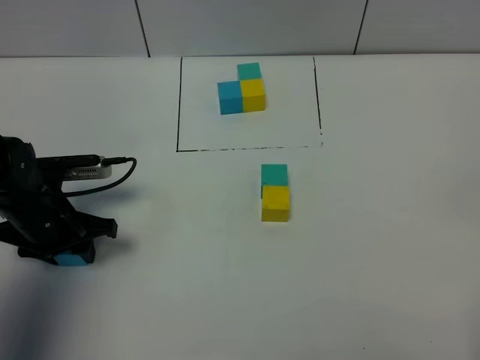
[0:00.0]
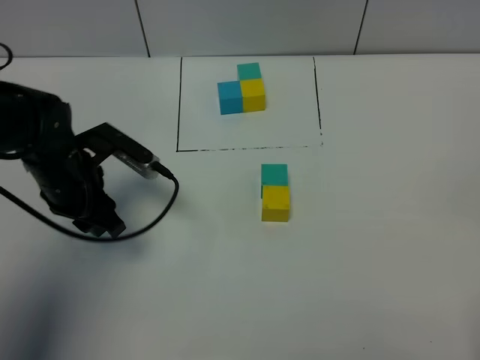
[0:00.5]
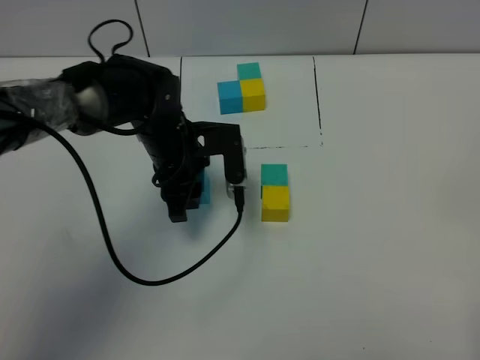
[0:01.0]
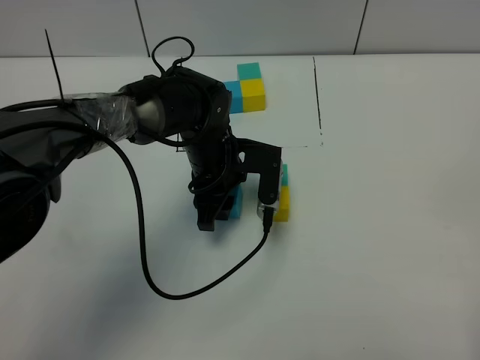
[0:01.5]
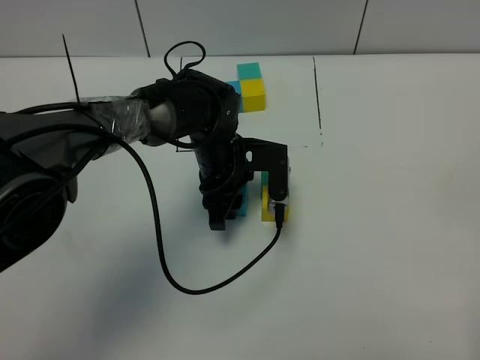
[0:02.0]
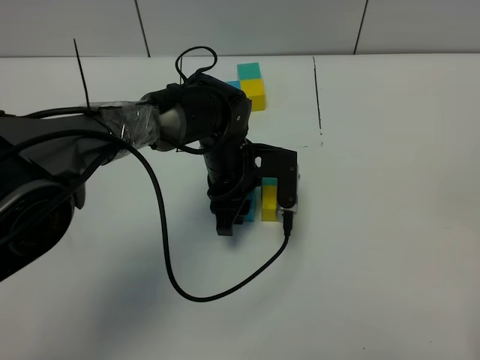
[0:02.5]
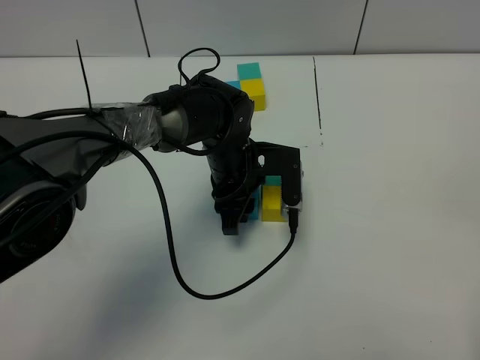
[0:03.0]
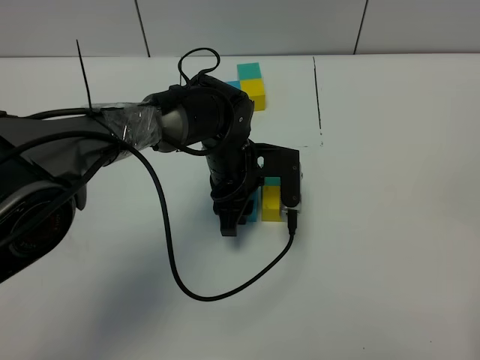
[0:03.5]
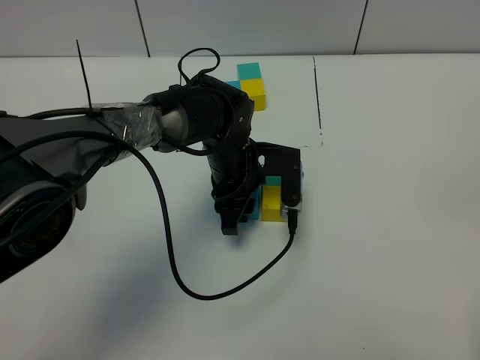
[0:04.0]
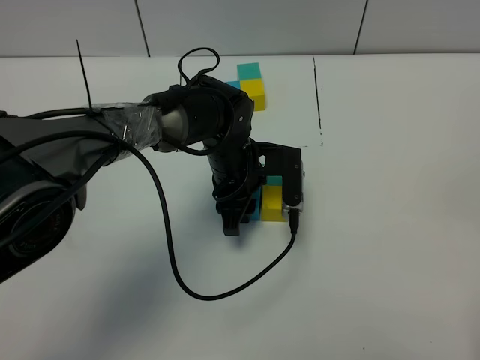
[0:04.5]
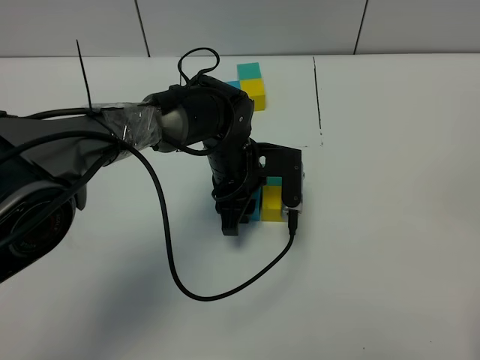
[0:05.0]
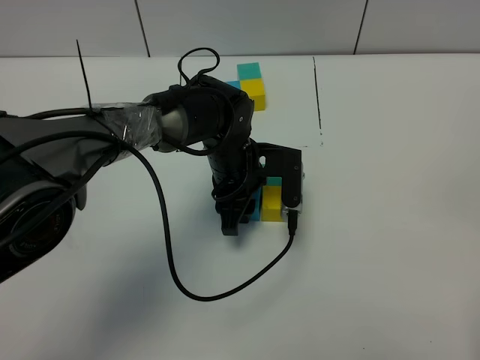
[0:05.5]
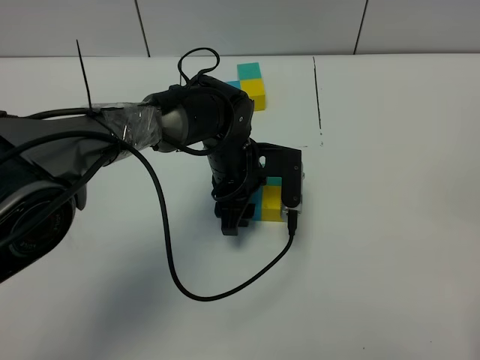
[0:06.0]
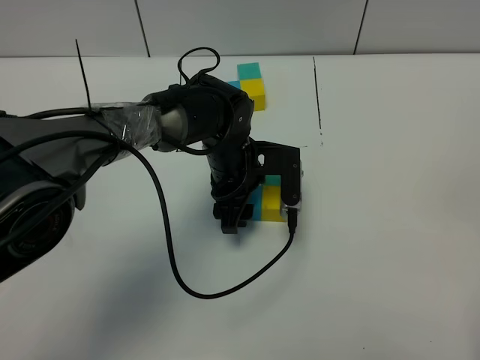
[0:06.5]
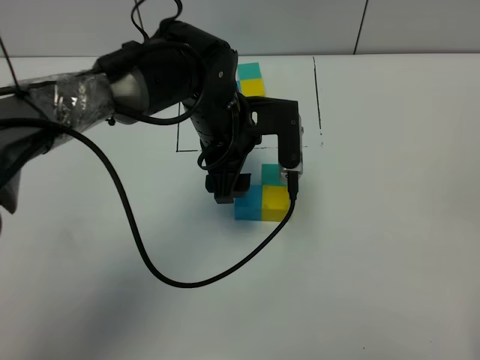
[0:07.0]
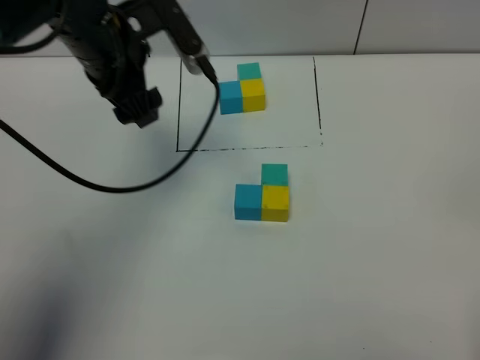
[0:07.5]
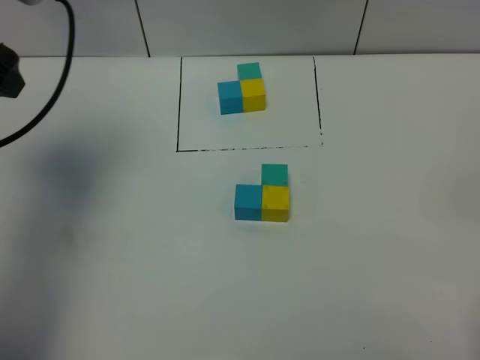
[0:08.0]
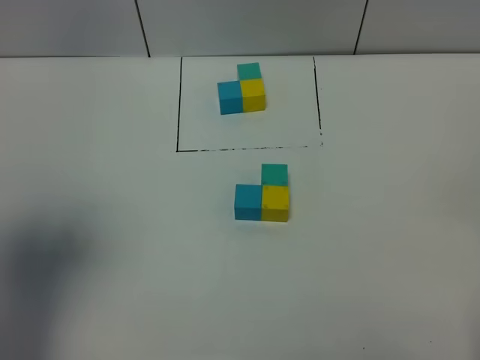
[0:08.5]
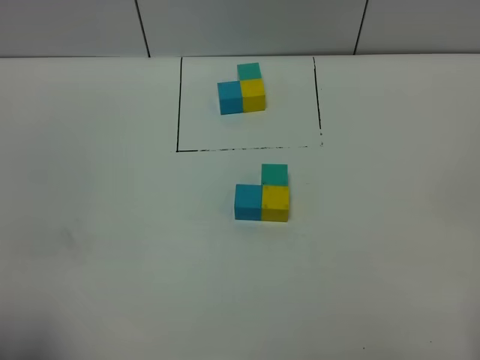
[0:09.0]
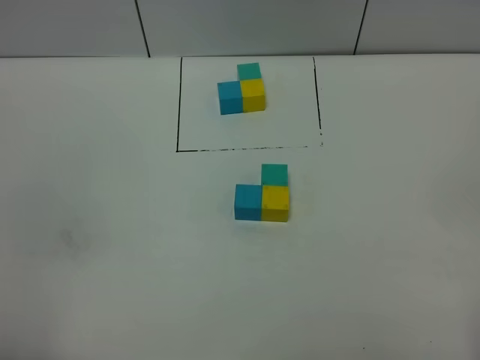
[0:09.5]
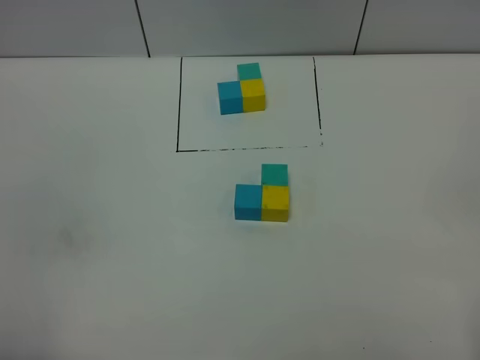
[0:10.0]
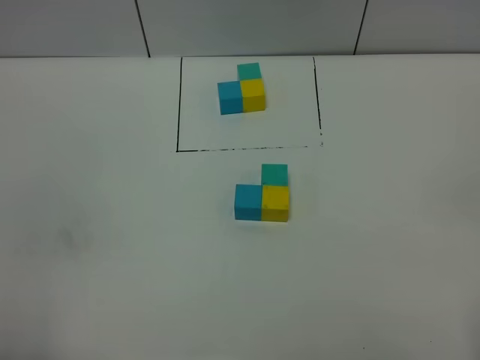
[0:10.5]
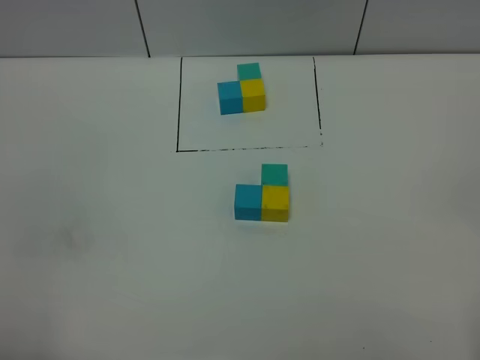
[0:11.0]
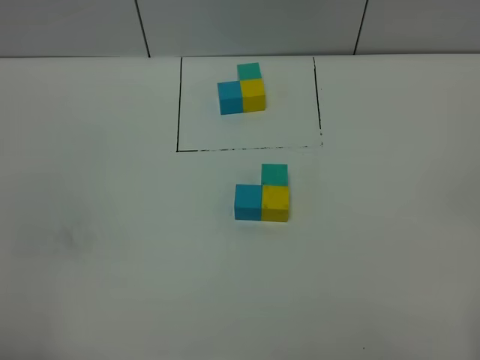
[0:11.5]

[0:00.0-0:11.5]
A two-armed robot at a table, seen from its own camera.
Task of the whole recording: According to the building block template in front, assemble the scattered blocks together.
Step, 0:00.0 to 0:06.0: Put the blue build block on the left of the yellow build block.
0:00.0 to 0:02.0: The left gripper goes some 20 cm to the right.
0:02.0 to 0:04.0: The grippers make only small movements.
0:04.0 to 0:06.0: Neither gripper changes place.
0:06.0 to 0:07.5: The left gripper shifts approximately 25 cm upward and to the left, and opens its fingers.
0:07.5 to 0:09.5: The left gripper heads backward, covering about 40 cm.
0:09.5 to 0:11.5: Both grippers stay put.

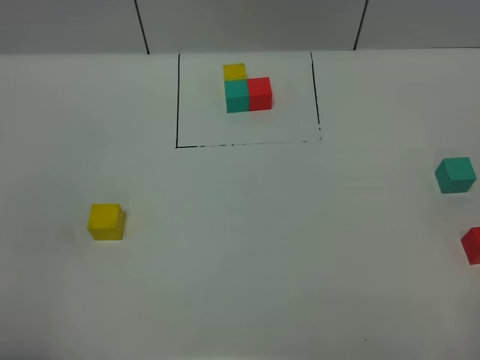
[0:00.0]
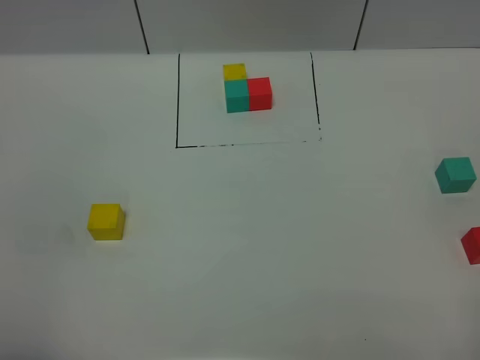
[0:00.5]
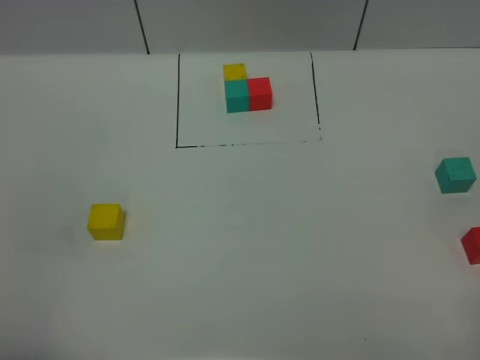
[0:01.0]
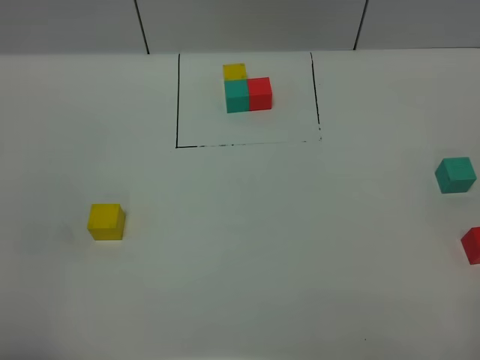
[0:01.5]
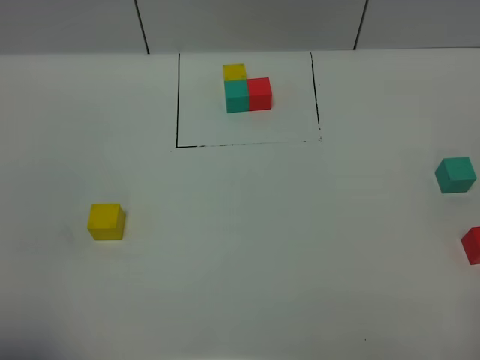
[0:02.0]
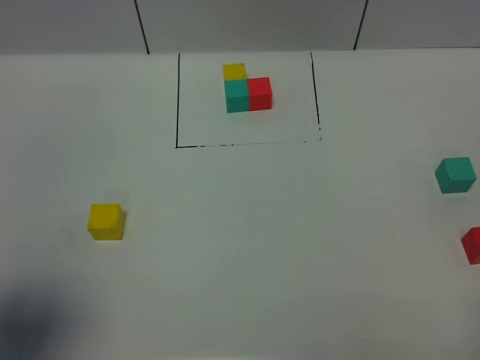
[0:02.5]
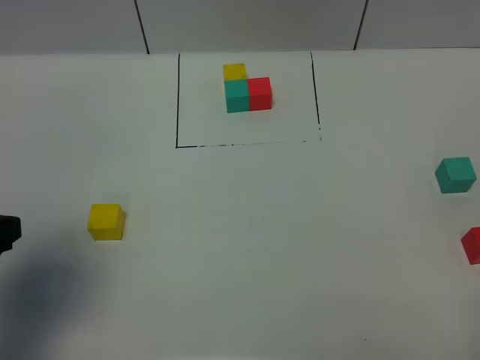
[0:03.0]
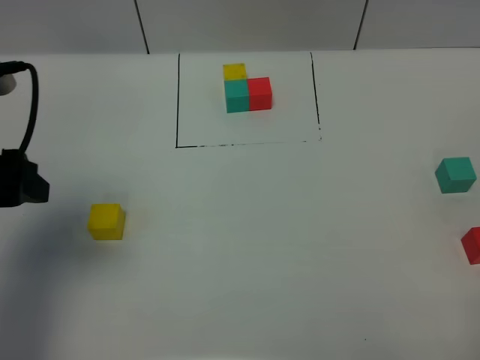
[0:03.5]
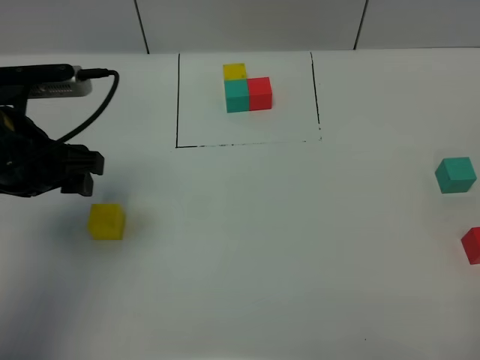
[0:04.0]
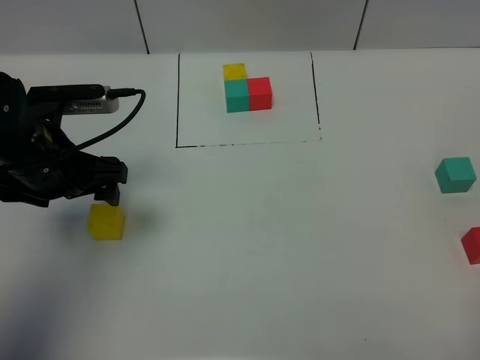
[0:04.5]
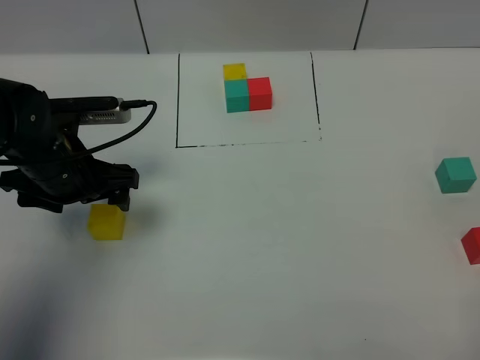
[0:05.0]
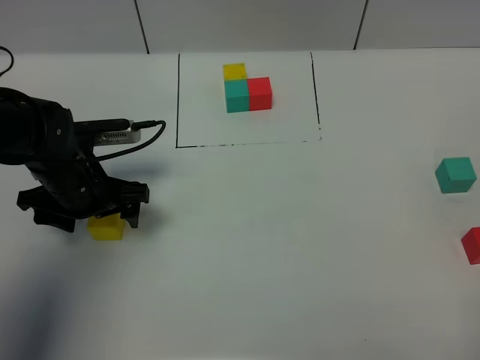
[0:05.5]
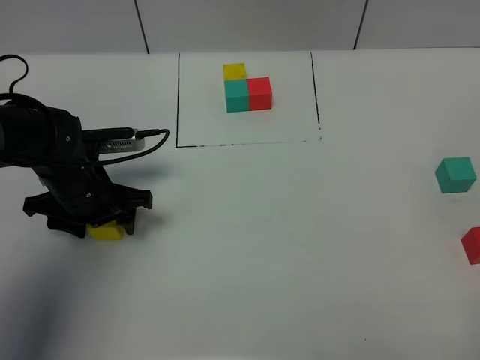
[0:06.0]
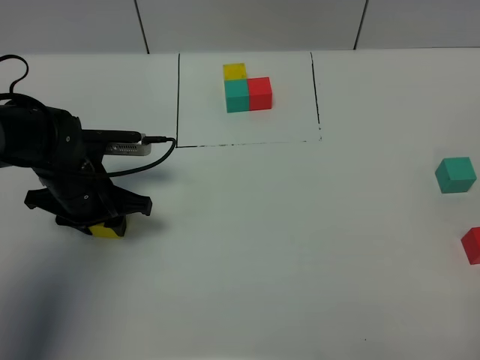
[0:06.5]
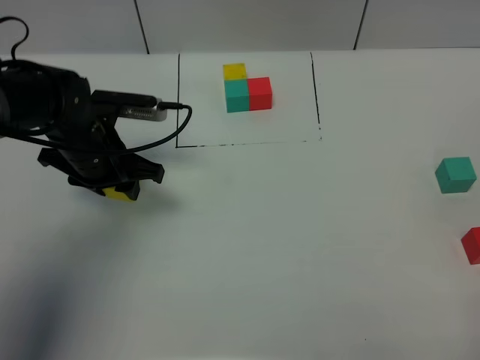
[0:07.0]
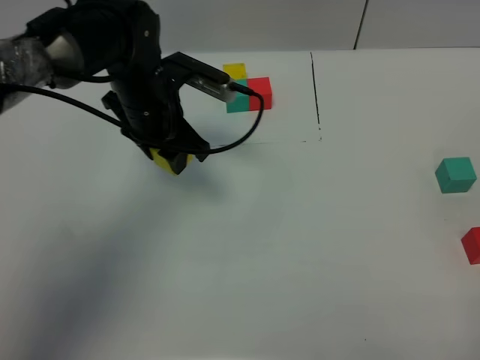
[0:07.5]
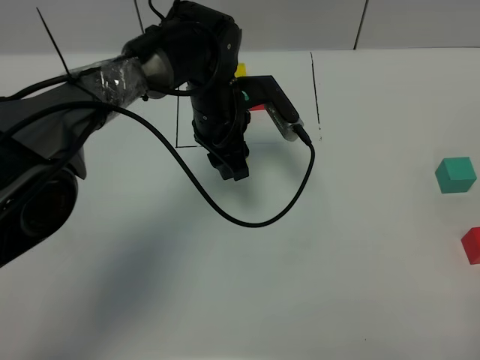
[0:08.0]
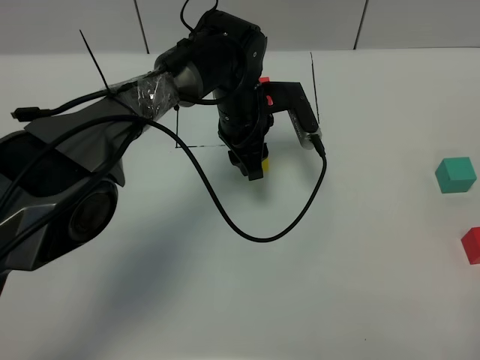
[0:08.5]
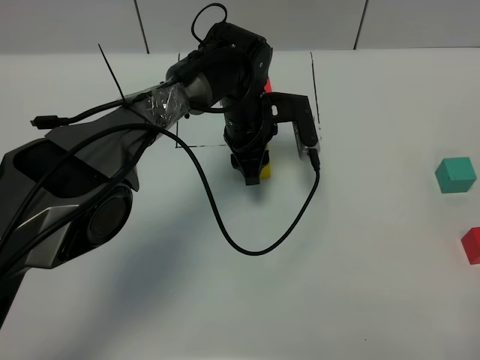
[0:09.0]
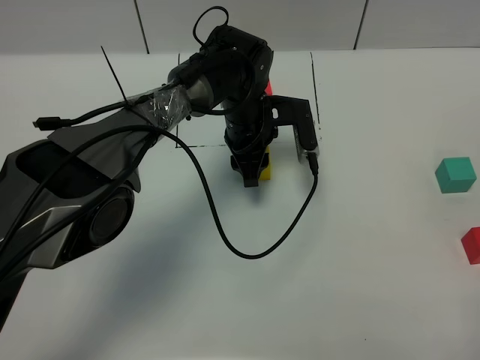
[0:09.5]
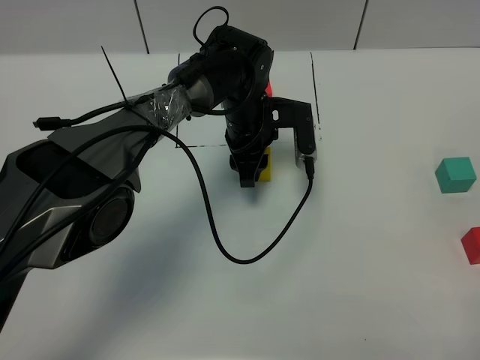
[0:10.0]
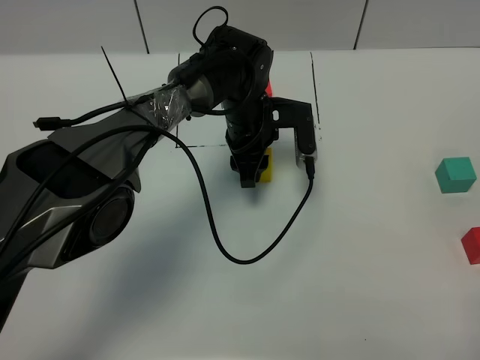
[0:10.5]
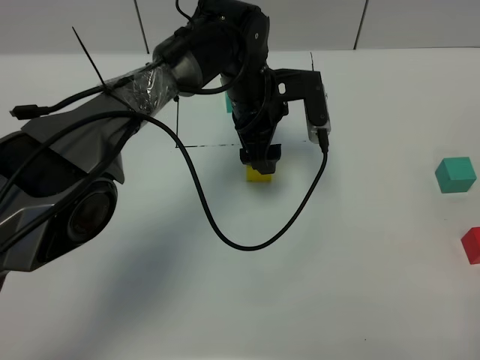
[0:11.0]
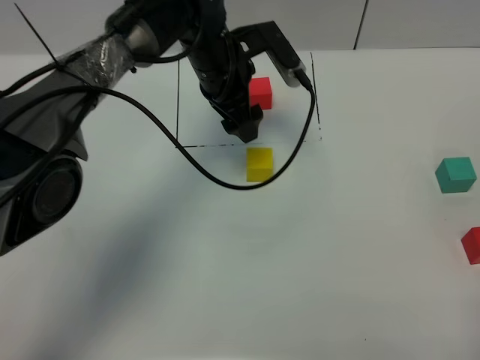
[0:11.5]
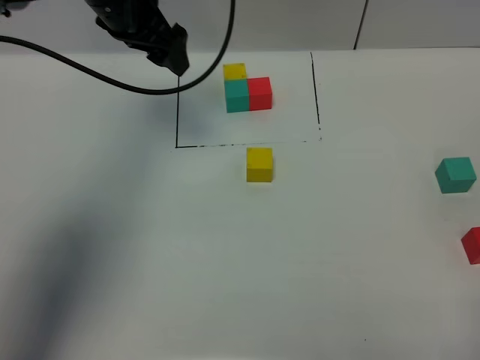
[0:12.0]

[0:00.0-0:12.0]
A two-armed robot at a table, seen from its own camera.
Task of the whole recording: According to the building block template in front, assemble the scattered blocks together.
Step, 0:00.0 to 0:10.5: Put the yellow build block in the center of the table.
0:02.0 to 0:04.0: The left gripper travels forward by roughly 25 cm.
0:04.0 to 0:06.0: The left gripper travels downward by about 15 cm, and opens, then closes once more.
0:06.0 to 0:08.0: The left gripper goes approximately 20 cm to the right and forward, and closes up.
0:08.0 to 0:10.0: The left gripper changes place by approximately 5 cm.
0:10.0 to 0:12.0: The left gripper moves upward and to the left, some 25 cm, and opens its fingers.

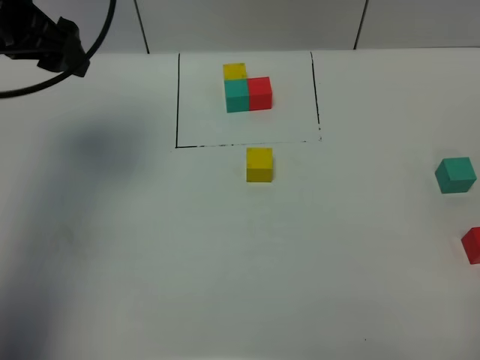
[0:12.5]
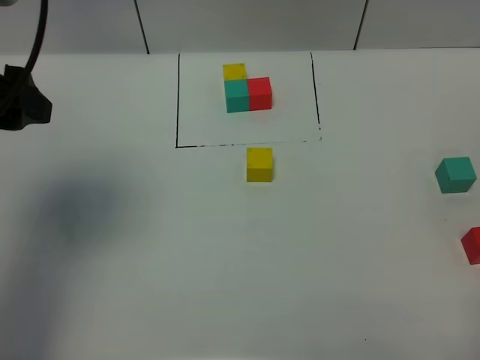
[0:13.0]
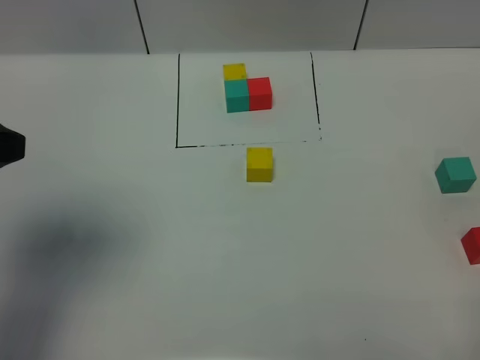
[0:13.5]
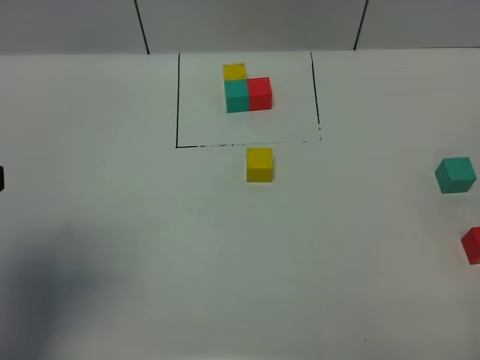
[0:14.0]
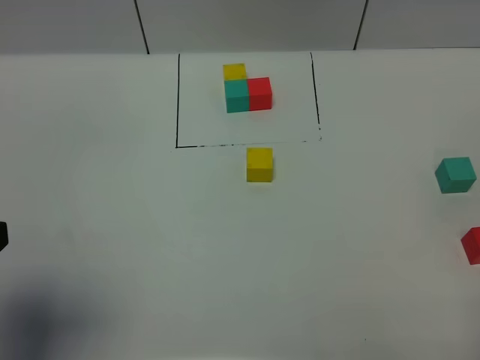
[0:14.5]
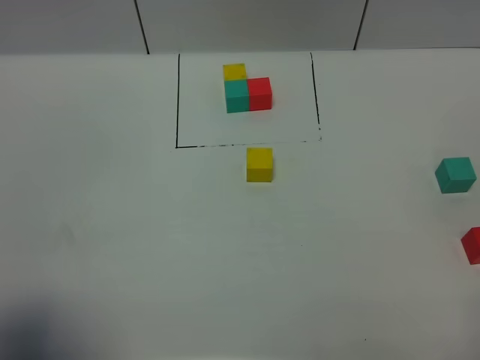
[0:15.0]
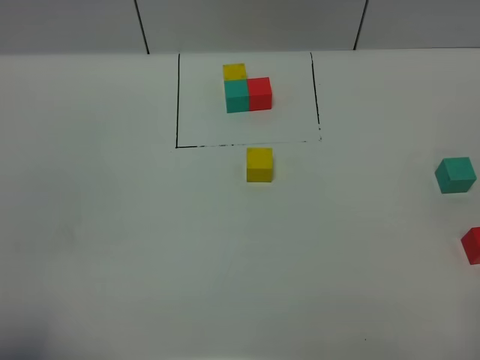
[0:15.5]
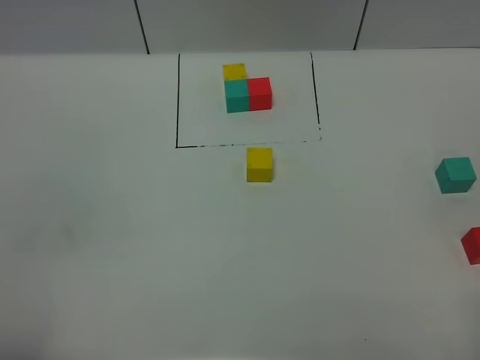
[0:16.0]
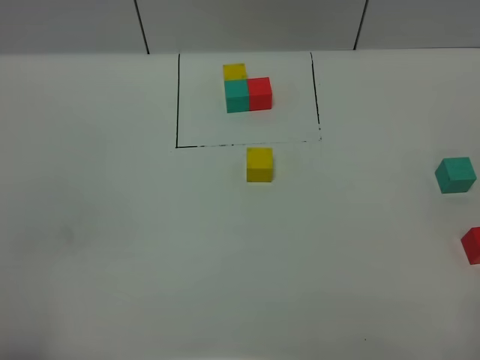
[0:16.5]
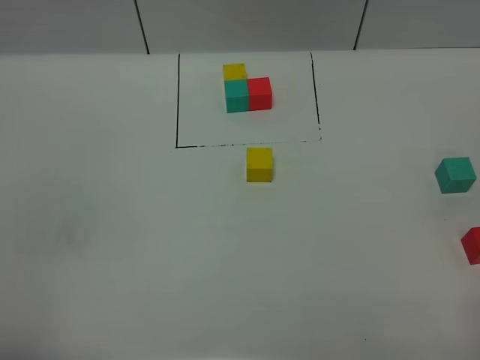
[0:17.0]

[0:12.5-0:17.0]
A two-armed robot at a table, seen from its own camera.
Task of the whole recording: According to the building block template in front, assemble the scattered blocks together.
0:12.5 to 0:14.5: The left gripper heads backward, covering about 25 cm.
0:14.5 to 0:17.0: The left gripper travels backward by some 10 cm.
